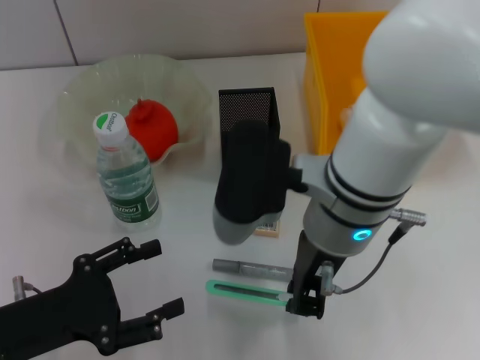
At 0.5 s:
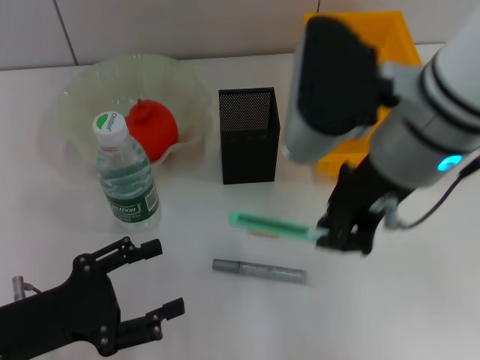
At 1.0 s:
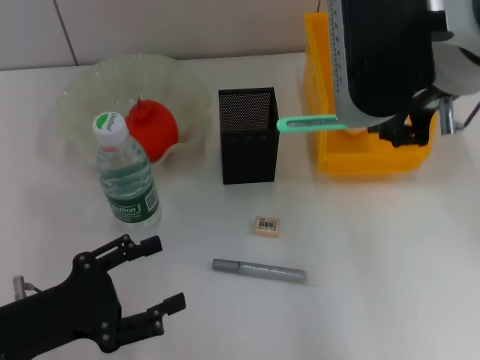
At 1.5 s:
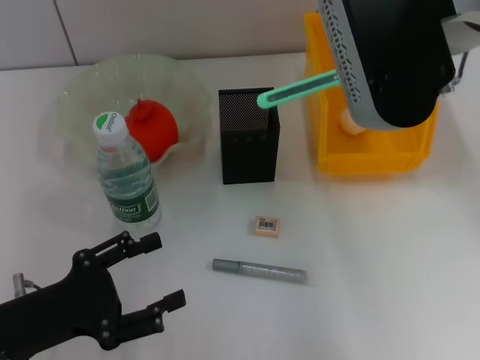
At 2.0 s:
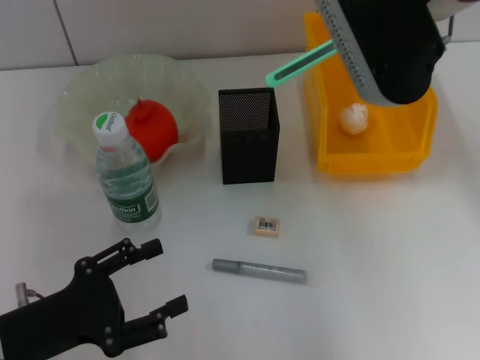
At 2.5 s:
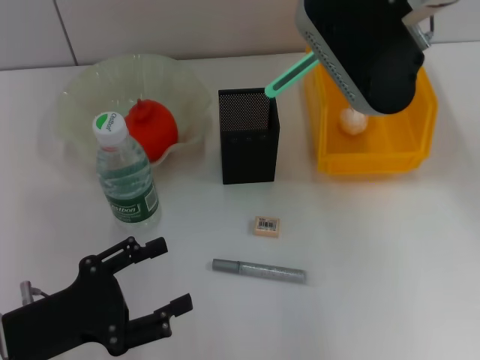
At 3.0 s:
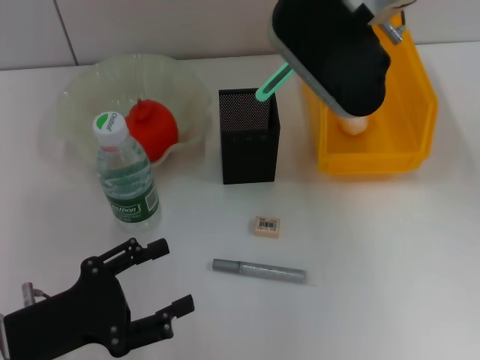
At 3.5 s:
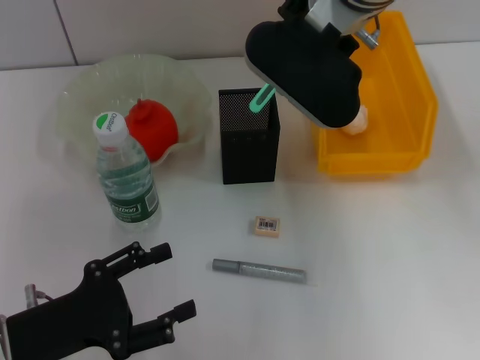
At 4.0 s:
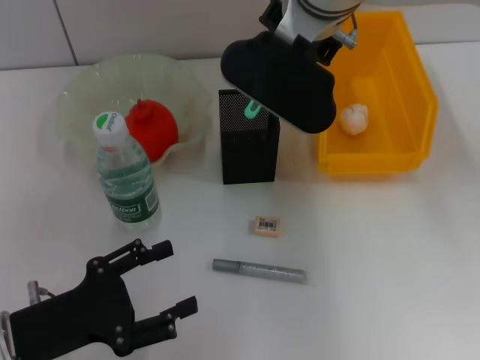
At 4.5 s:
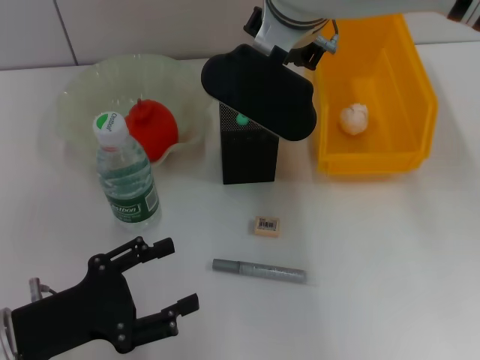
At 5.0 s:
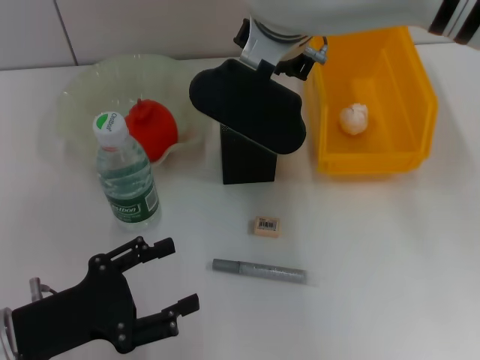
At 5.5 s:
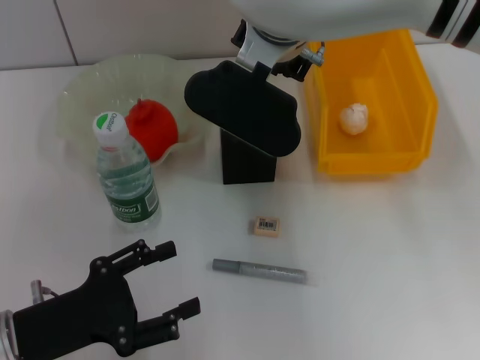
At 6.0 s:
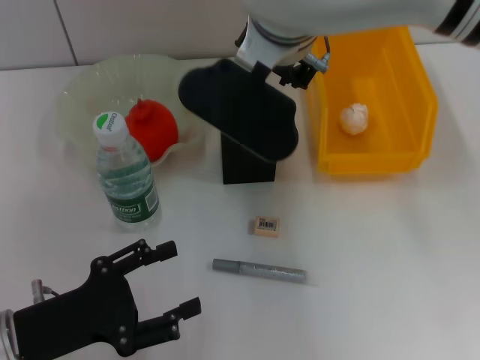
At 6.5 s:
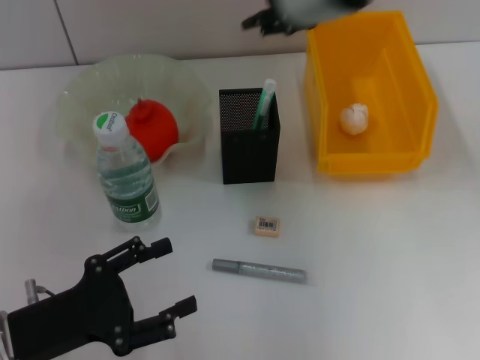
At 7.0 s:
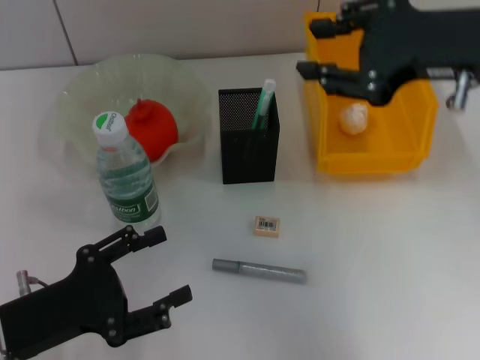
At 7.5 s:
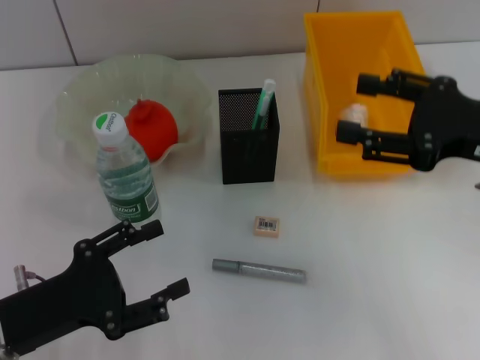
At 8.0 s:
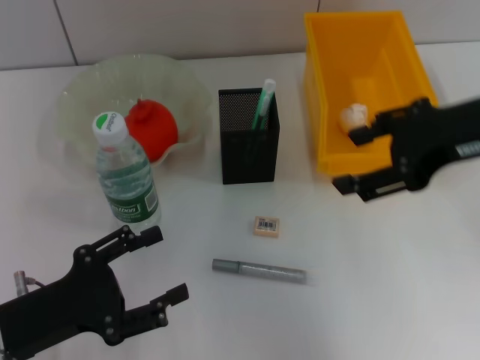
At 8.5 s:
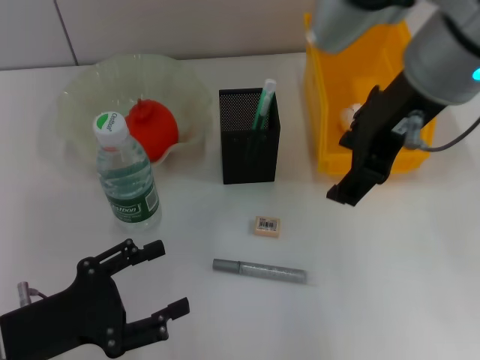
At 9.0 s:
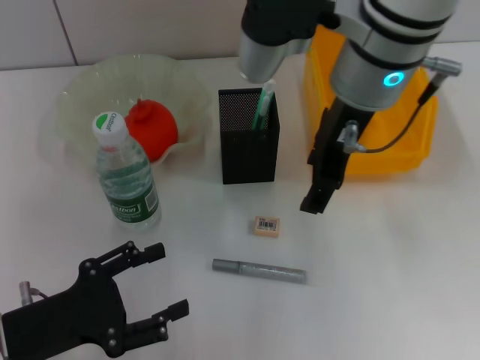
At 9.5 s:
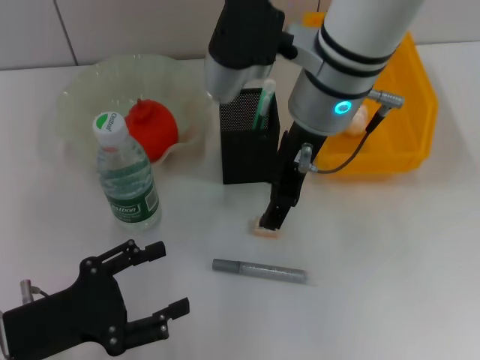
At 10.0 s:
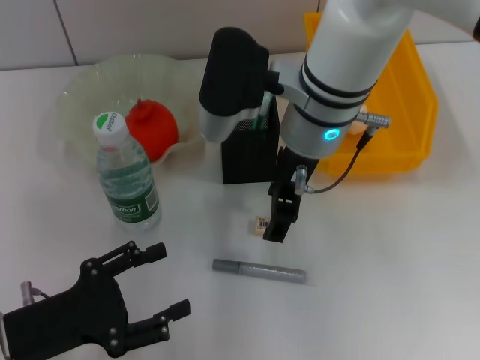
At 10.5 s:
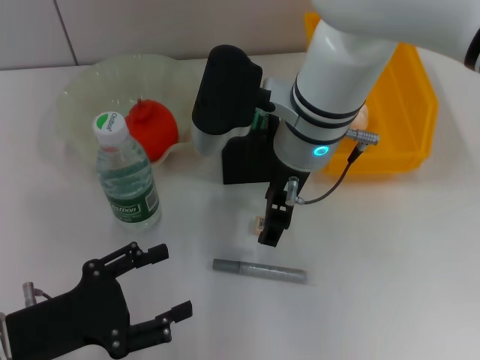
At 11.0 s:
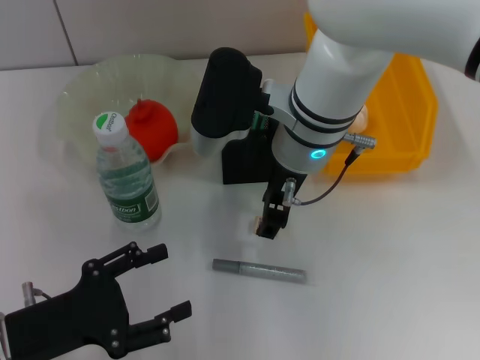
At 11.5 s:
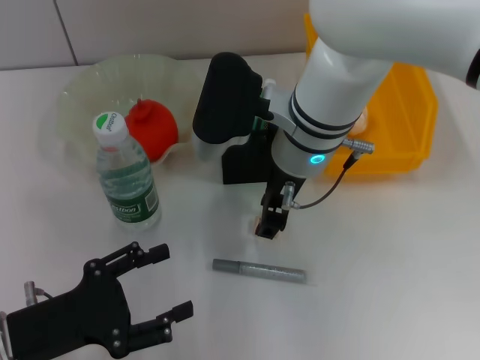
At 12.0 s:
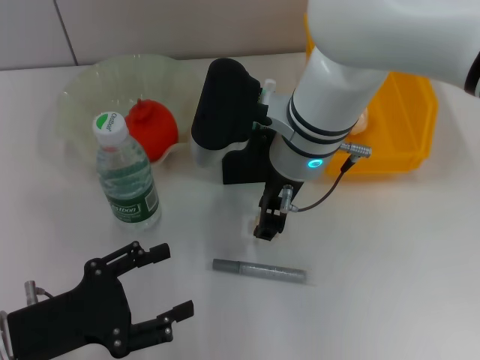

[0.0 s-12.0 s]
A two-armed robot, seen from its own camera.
Step, 0.0 to 5.0 s: Place the blue utility knife into the pen holder with the right hand.
0.0 to 2.0 s: The right gripper travels upward, forward and to the right by roughly 15 cm.
2.0 to 4.0 s: The right gripper is displaced to the left, downward and forward by some 10 cm.
4.0 to 6.0 s: The grippers make only small movements.
6.0 to 8.0 s: The right gripper shifts roughly 25 cm to the right and backward, and opens up.
8.0 to 10.0 s: The right gripper heads to the left, forward and downward, covering roughly 20 cm.
10.0 to 12.0 s: The grippers move only a little.

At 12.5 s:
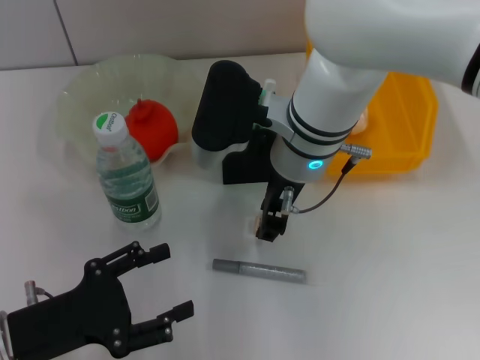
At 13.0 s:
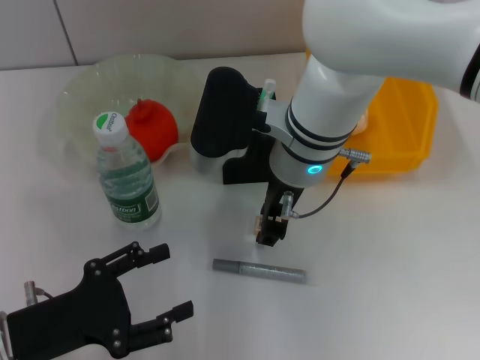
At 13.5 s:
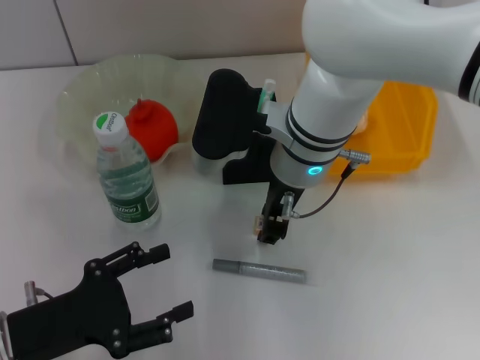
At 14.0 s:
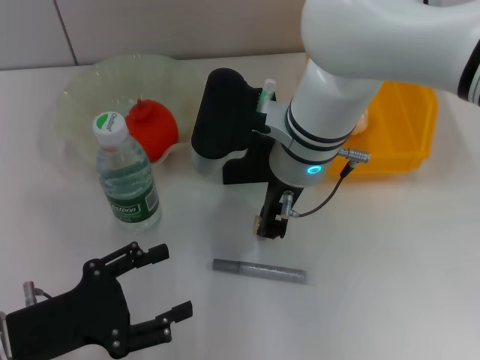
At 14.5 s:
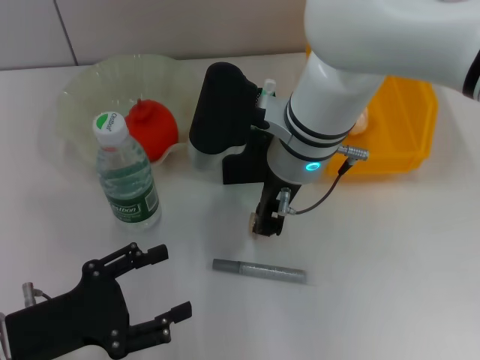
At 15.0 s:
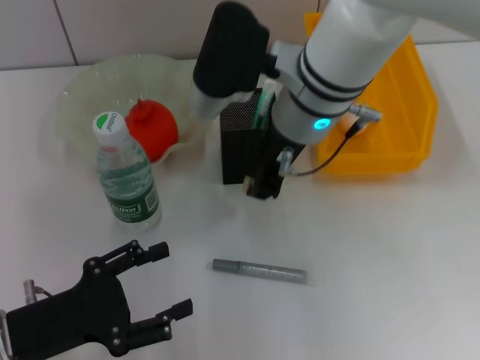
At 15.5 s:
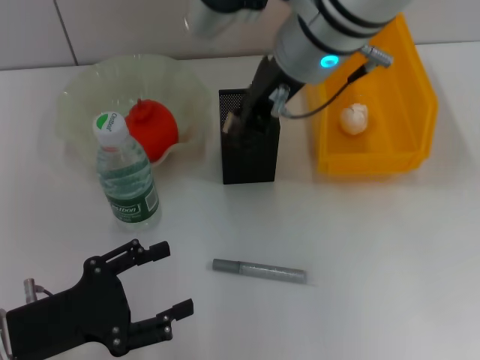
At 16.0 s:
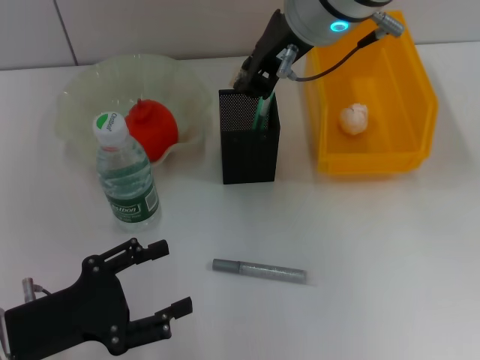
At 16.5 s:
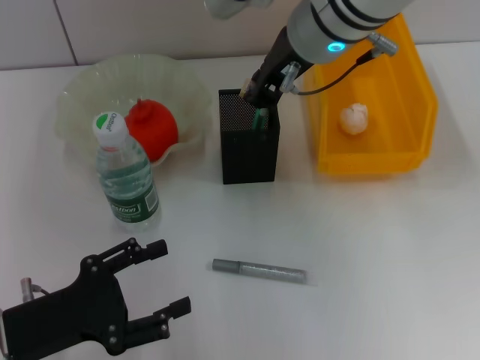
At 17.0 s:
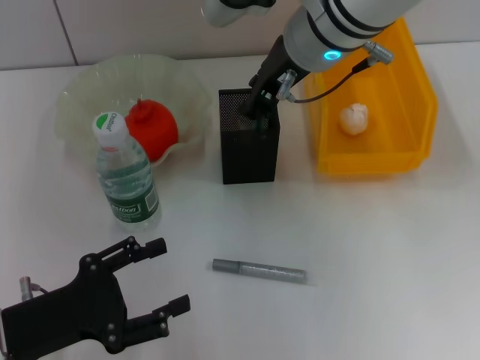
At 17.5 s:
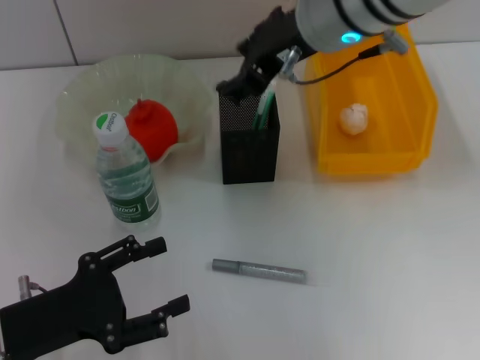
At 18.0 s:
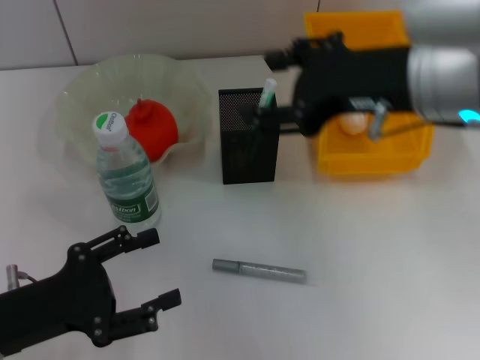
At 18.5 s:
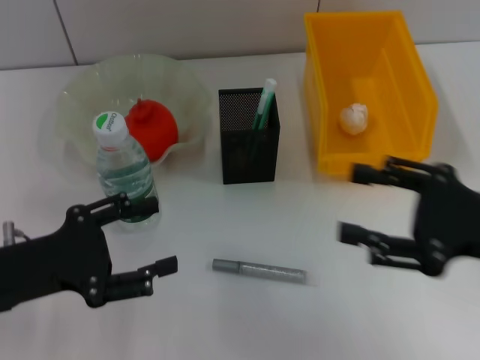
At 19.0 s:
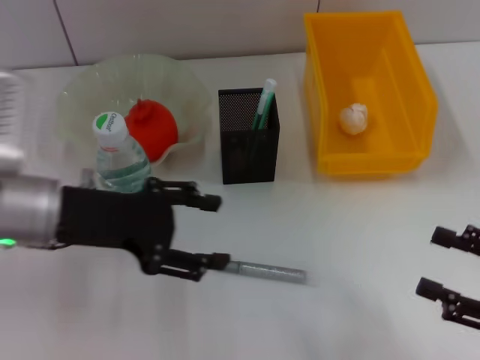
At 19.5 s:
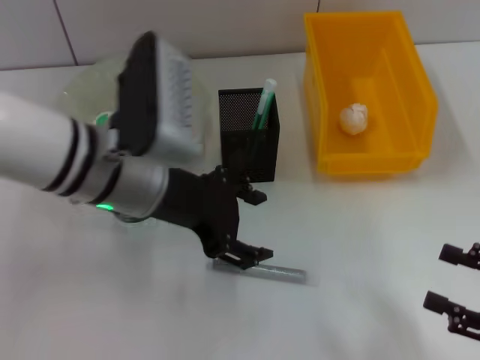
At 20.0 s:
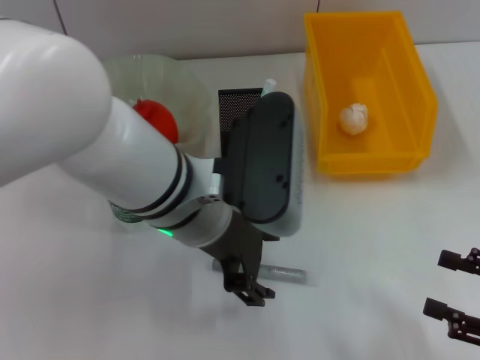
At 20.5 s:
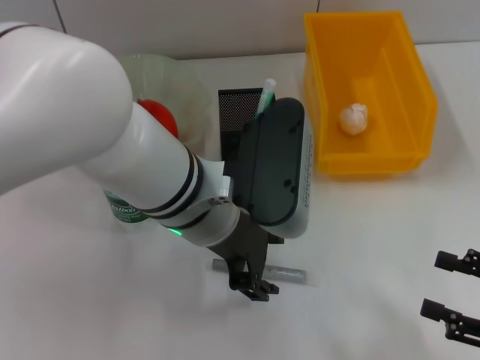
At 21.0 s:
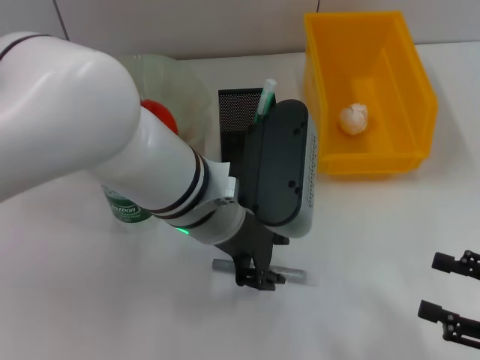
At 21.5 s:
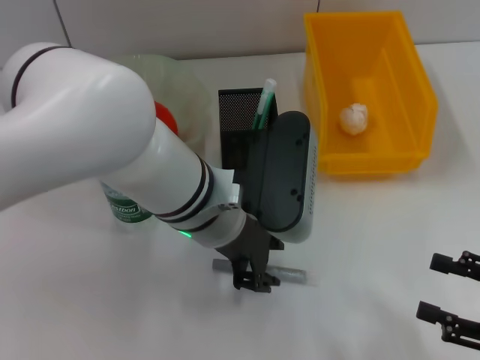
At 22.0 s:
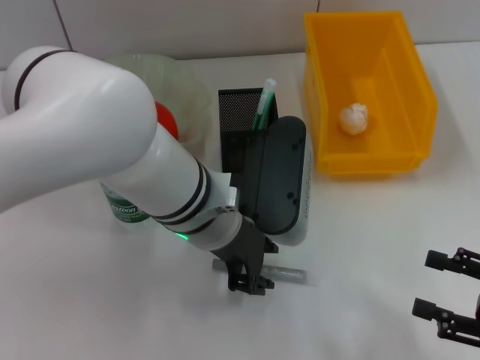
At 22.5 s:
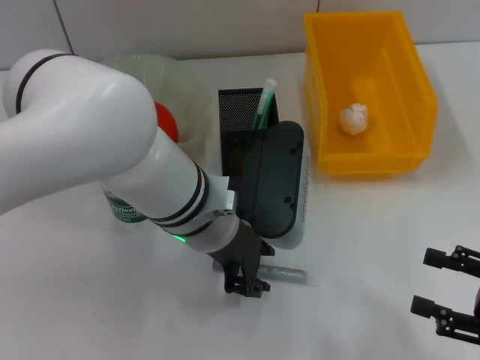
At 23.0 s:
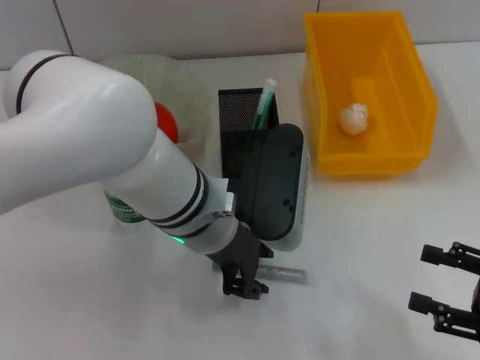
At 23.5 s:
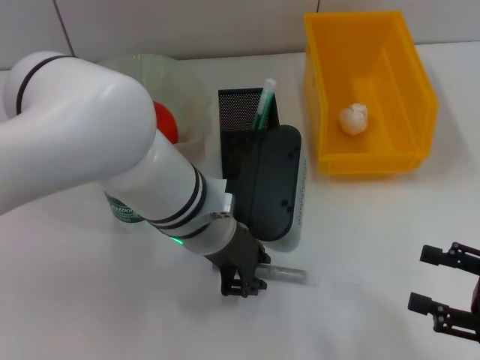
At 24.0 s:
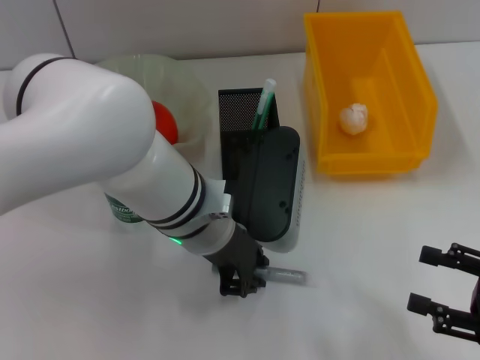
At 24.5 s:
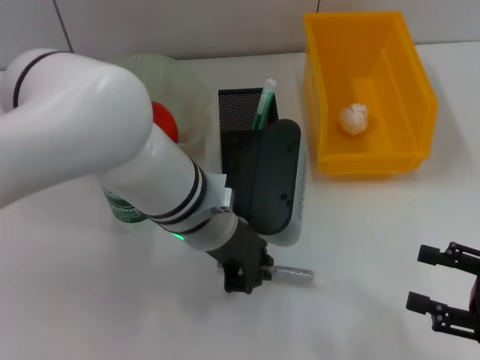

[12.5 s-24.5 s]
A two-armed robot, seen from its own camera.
Step, 13.5 to 17.0 s: Put the eraser into the pen holder with the right hand.
Step, 17.5 to 24.0 s: Grab the gray glue with the left hand.
12.5 to 14.5 s: Both grippers stay about where they are.
14.5 to 16.5 s: The right gripper shifts roughly 10 cm upward.
16.5 to 18.5 s: The left gripper moves approximately 5 cm. The right gripper is displaced backward, to the right and downward by roughly 30 cm, and opens up.
18.5 to 20.5 s: The left gripper moves to the right, about 20 cm. Meanwhile the right gripper goes some 15 cm downward, to the right and backward.
20.5 to 22.5 s: The left gripper closes its fingers.
22.5 to 24.5 s: The left gripper closes its fingers.

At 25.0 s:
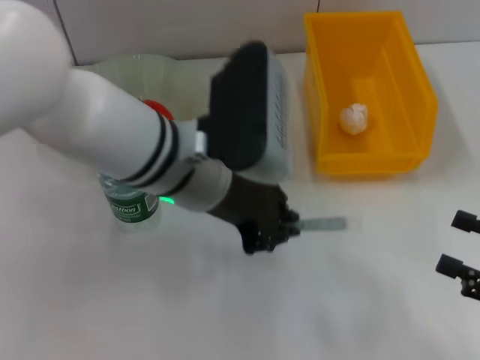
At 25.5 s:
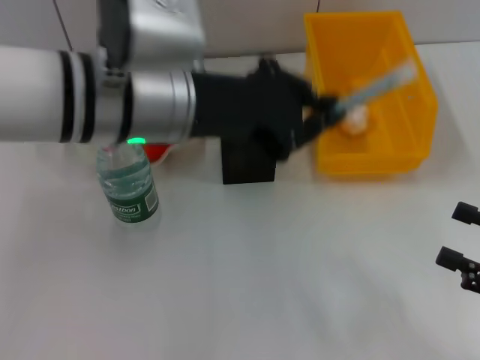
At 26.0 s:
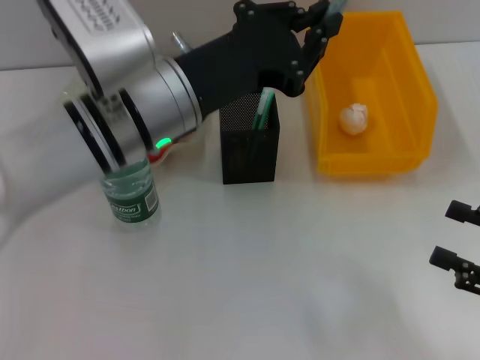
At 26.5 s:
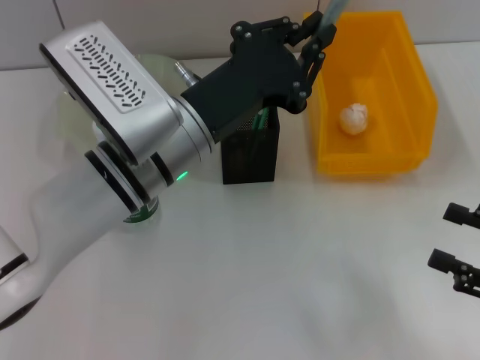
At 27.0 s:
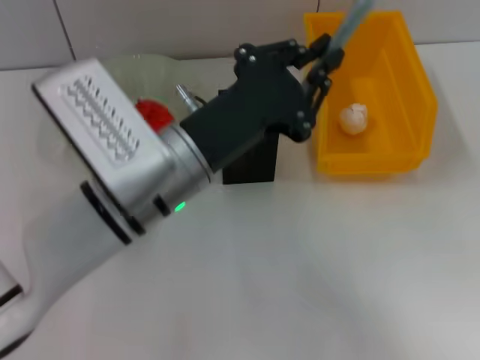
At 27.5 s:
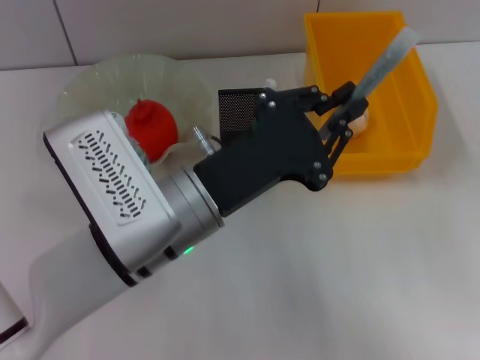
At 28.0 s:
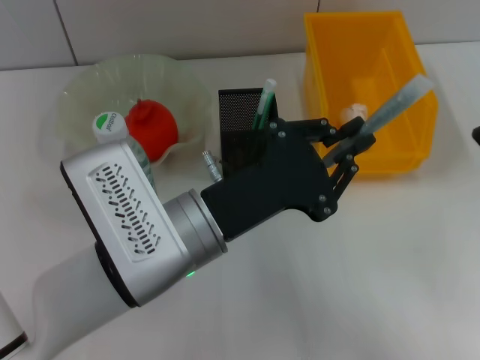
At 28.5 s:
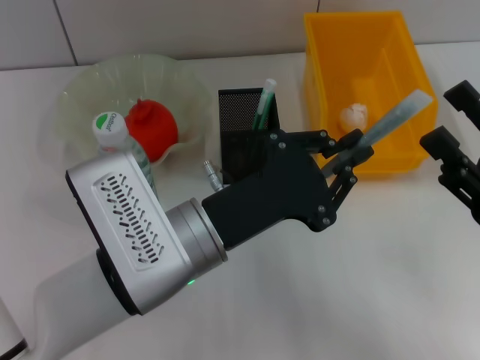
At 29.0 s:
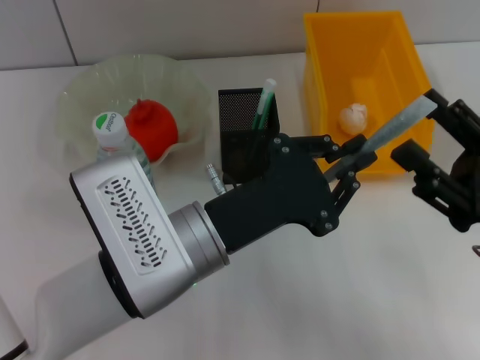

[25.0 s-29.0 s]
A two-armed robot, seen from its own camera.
25.0 to 27.0 s: The left gripper changes place by approximately 5 cm.
27.0 to 29.0 s: The right gripper goes approximately 5 cm to the left. The left gripper moves about 5 cm.
